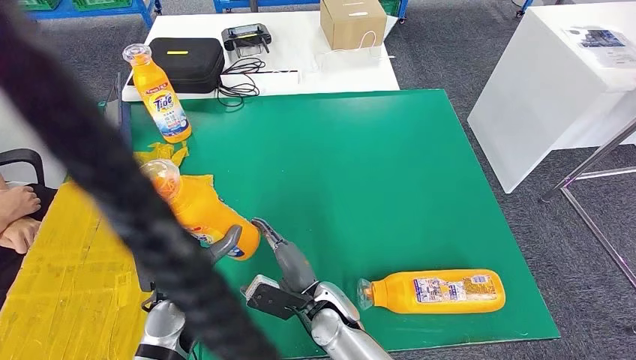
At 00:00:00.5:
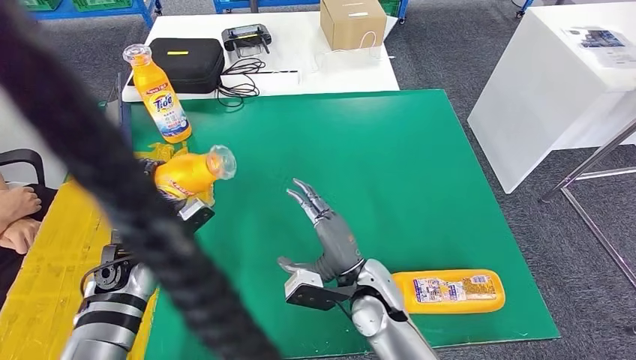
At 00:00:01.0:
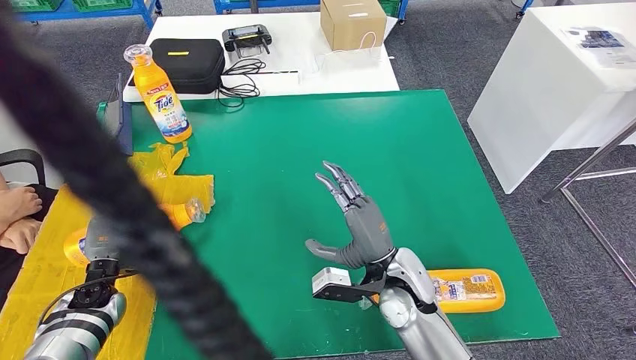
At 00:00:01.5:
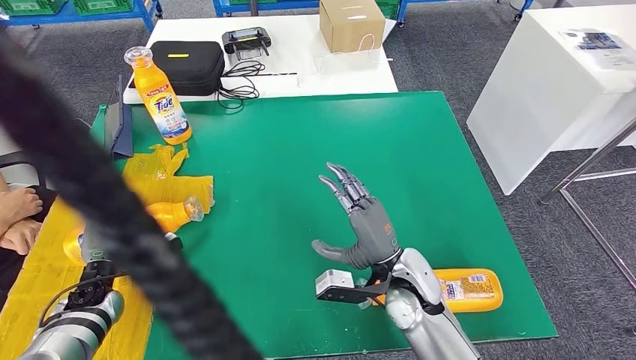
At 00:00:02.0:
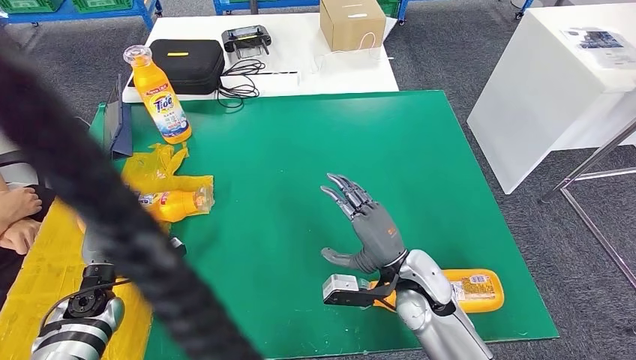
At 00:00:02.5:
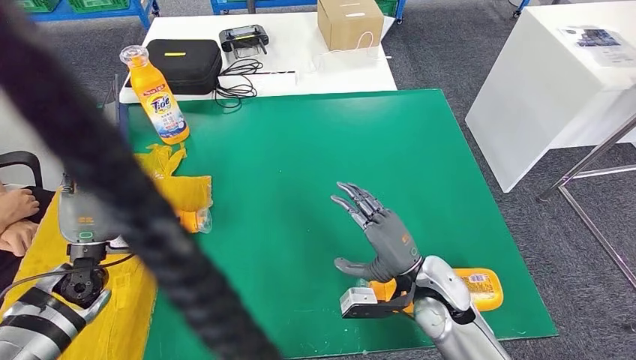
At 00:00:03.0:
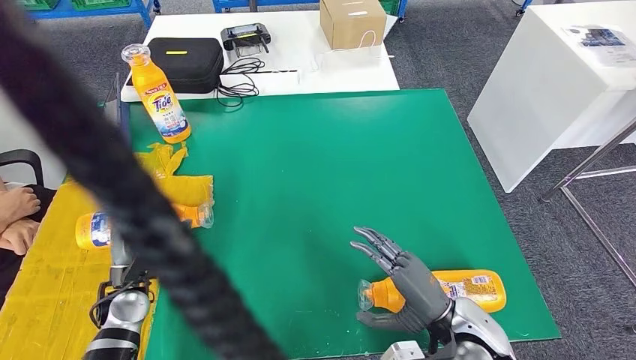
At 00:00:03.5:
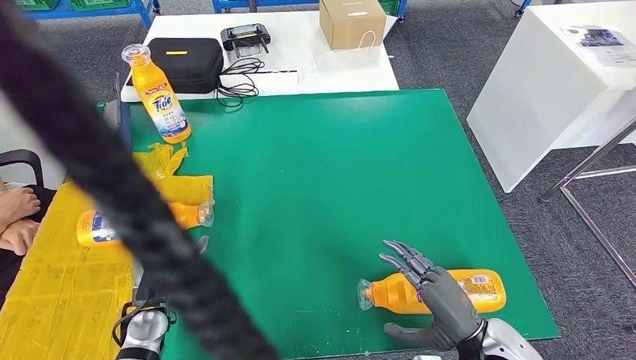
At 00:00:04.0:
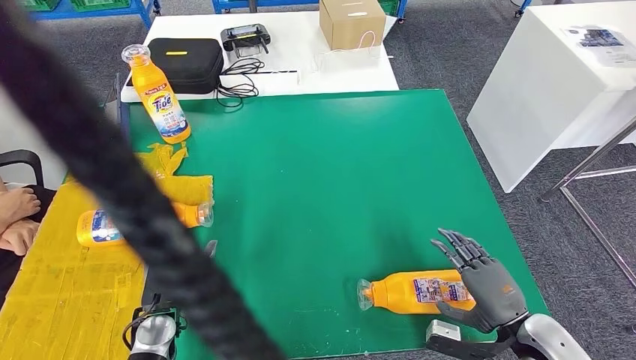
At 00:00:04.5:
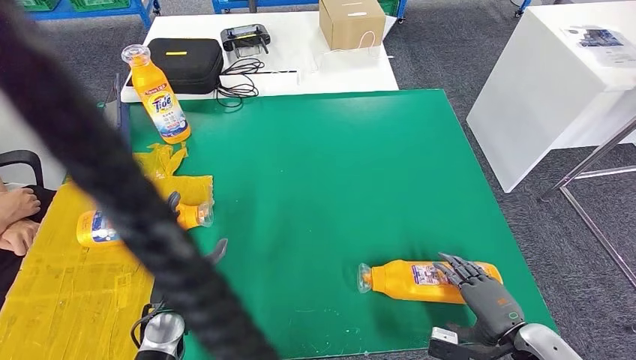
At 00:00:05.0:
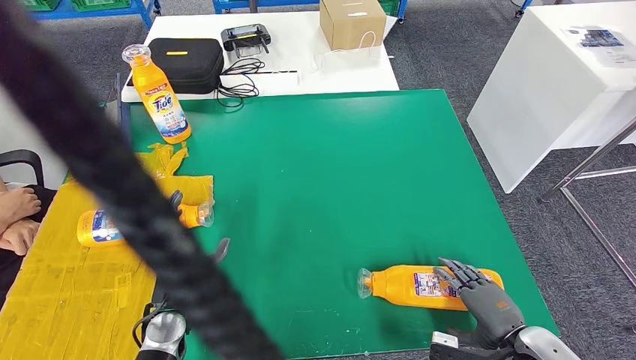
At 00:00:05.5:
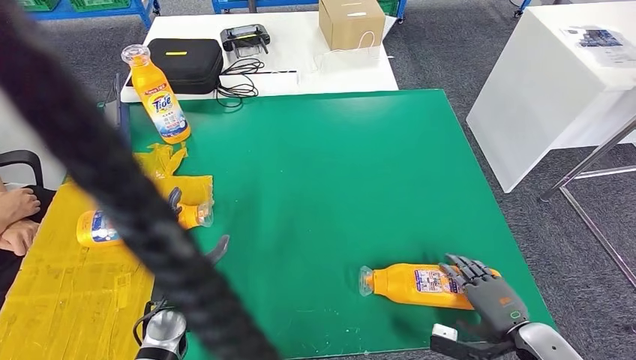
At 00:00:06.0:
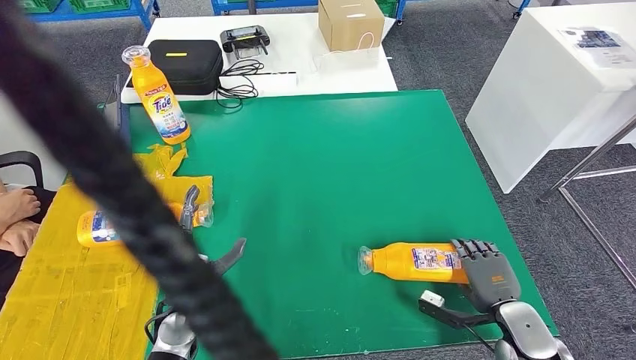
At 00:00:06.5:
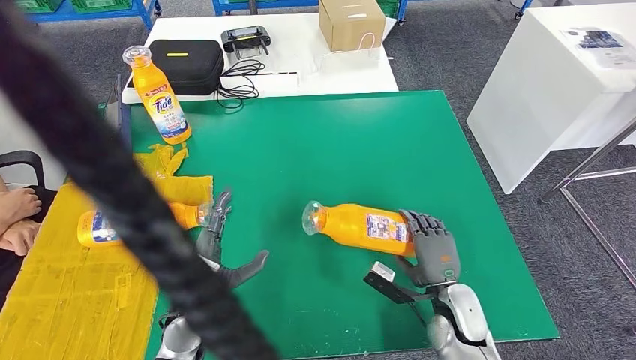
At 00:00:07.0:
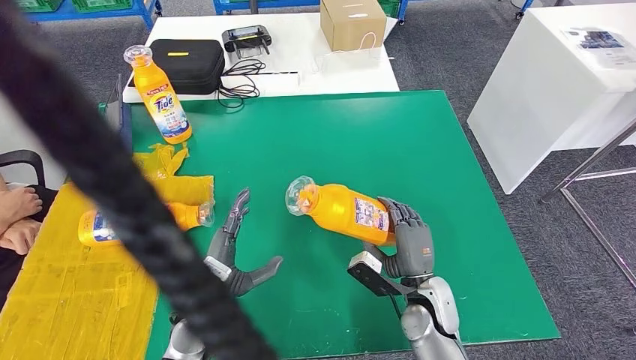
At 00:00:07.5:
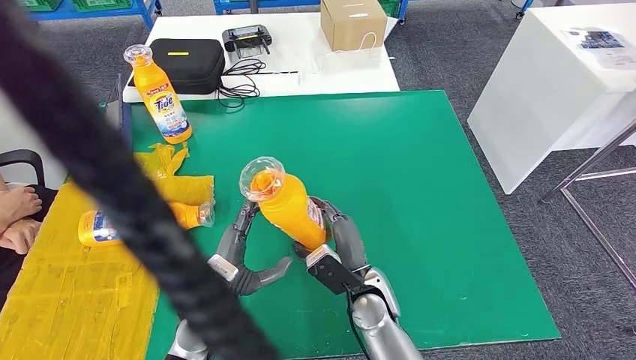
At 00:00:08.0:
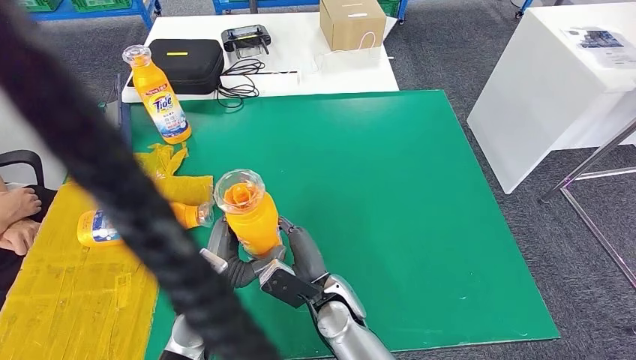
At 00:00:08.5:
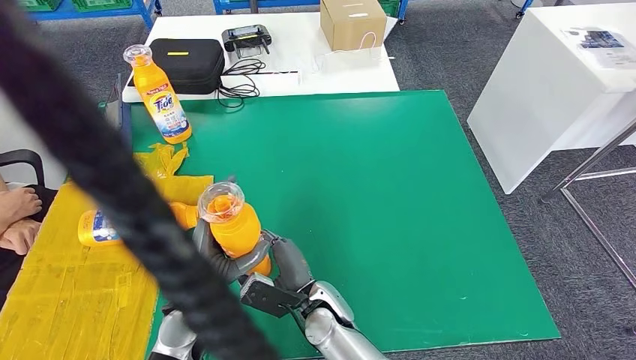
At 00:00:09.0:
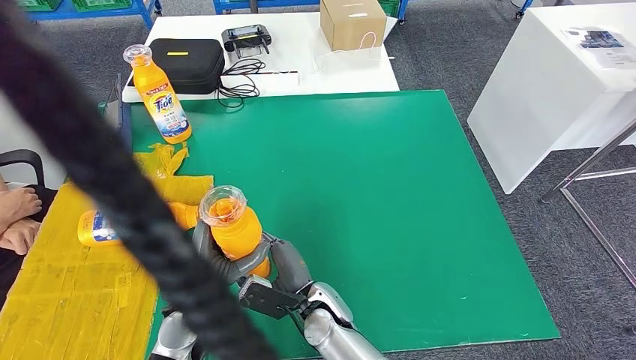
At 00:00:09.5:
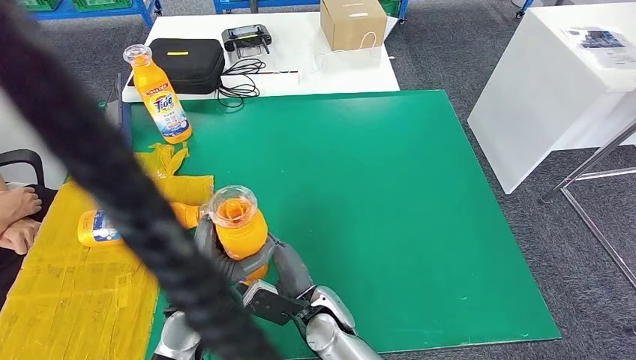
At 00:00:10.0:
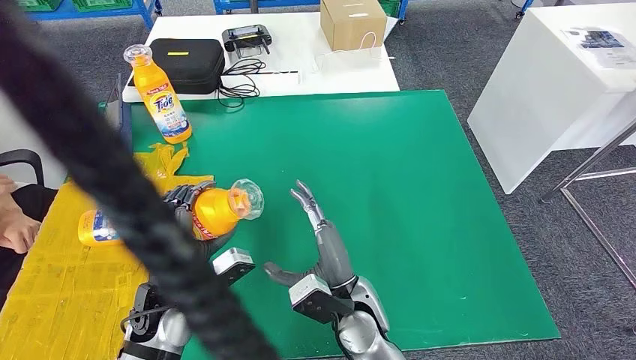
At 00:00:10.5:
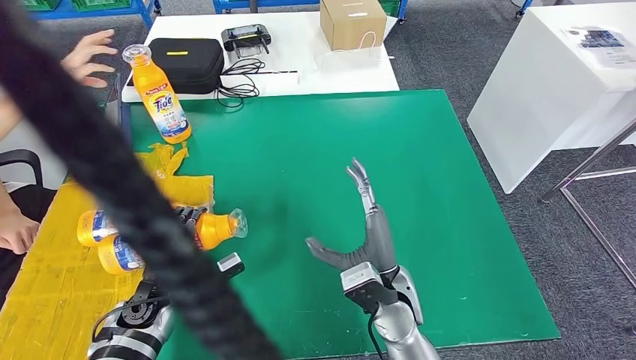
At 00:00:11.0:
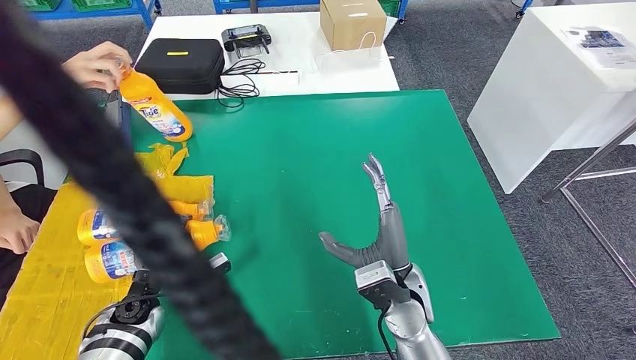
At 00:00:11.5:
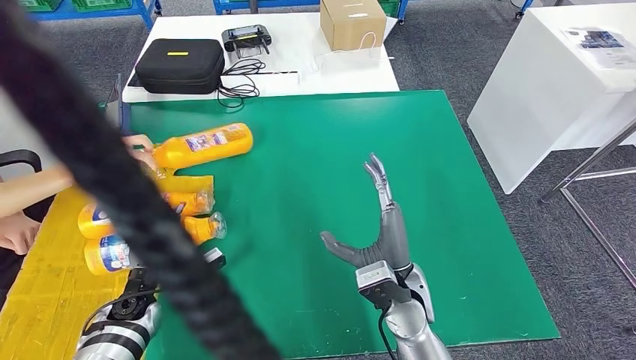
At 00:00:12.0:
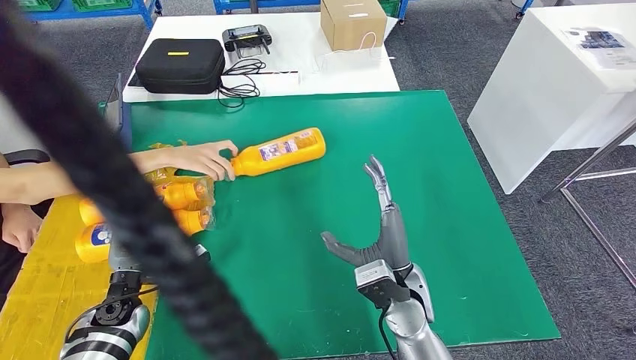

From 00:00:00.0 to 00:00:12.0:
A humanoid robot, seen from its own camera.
Step, from 00:00:00.0 to 00:00:02.0: Flip the bottle to face forward.
Step, from 00:00:02.5 to 00:00:06.5: Pick up the bottle from the table.
Step, from 00:00:07.5 to 00:00:10.0: Flip the bottle to face forward.
From 00:00:04.0 to 00:00:06.0: The right hand is displaced downward by approximately 5 cm; the left hand ends up approximately 5 cm from where it was.
From 00:00:06.0 to 00:00:08.0: The left hand moves to the right, some 5 cm. Meanwhile the right hand shifts some 30 cm to the left.
From 00:00:08.0 to 00:00:10.0: The left hand travels to the left by some 5 cm. The right hand moves some 5 cm.
From 00:00:10.0 to 00:00:12.0: The left hand heads to the left and downward, covering approximately 15 cm; the right hand shifts approximately 10 cm to the right.

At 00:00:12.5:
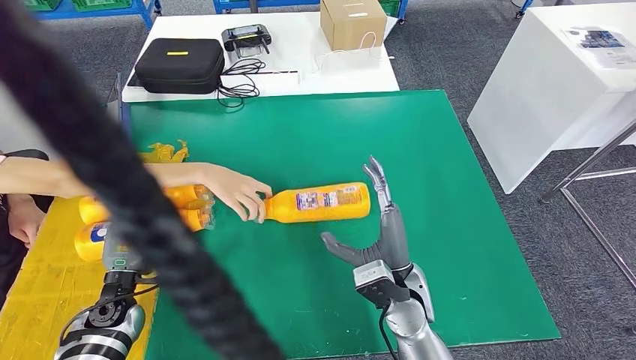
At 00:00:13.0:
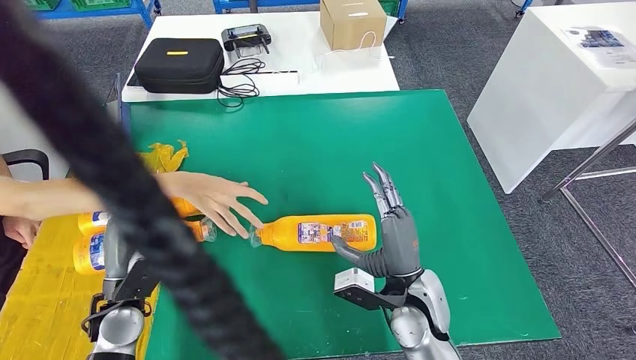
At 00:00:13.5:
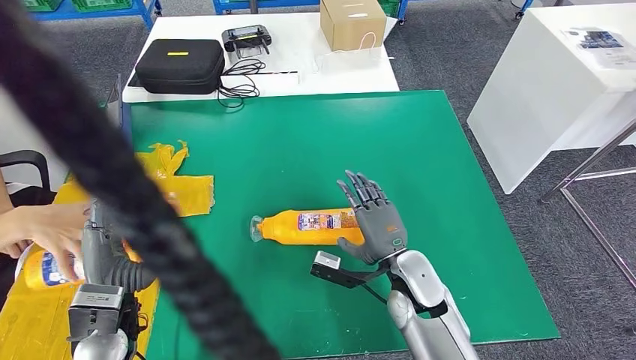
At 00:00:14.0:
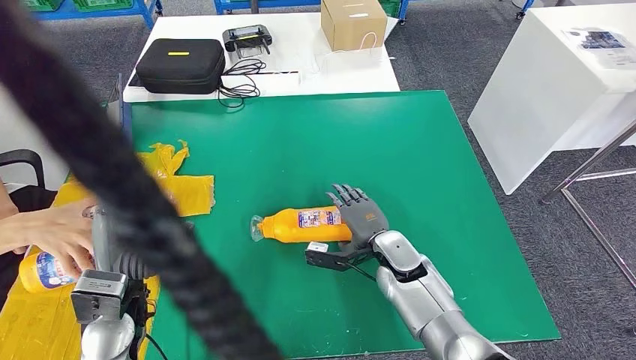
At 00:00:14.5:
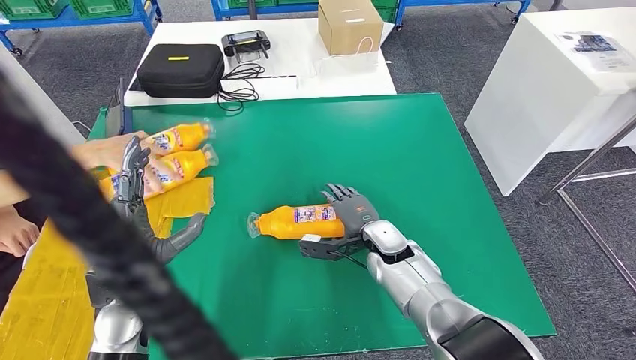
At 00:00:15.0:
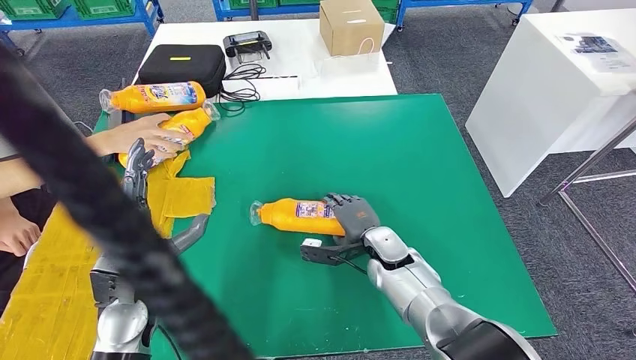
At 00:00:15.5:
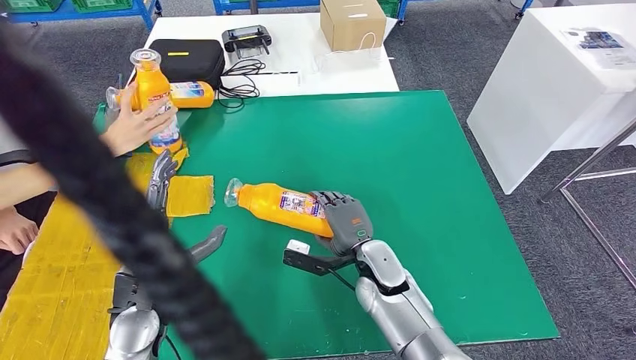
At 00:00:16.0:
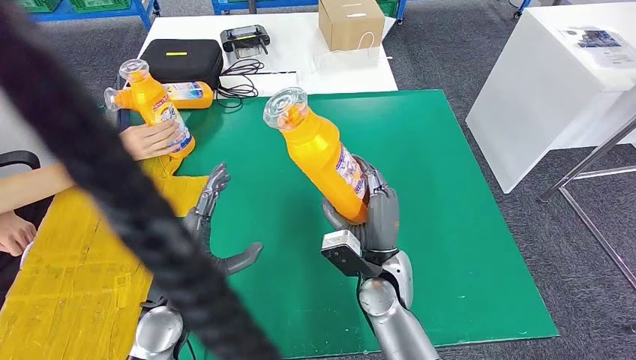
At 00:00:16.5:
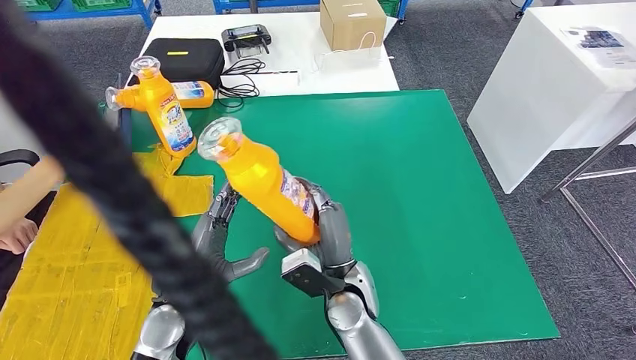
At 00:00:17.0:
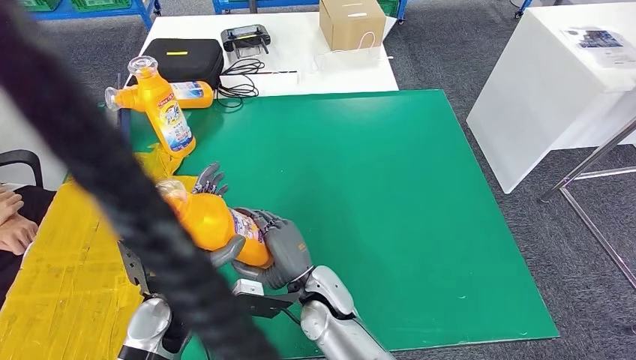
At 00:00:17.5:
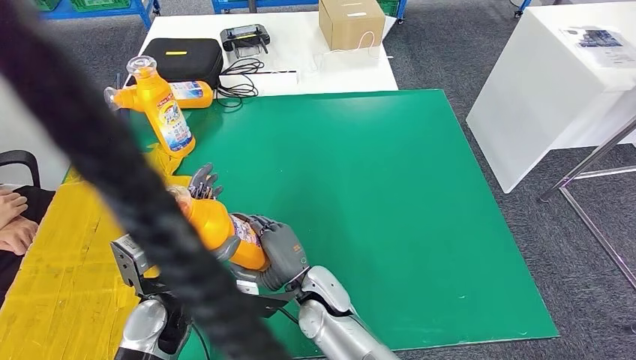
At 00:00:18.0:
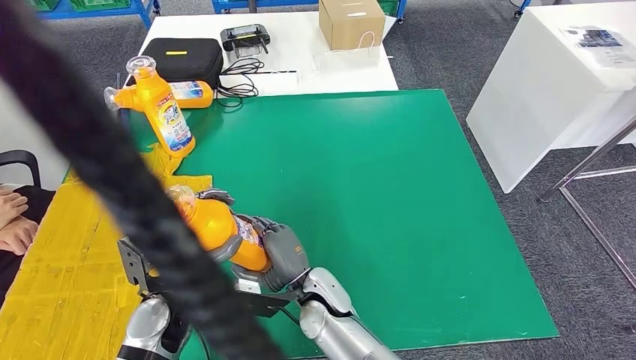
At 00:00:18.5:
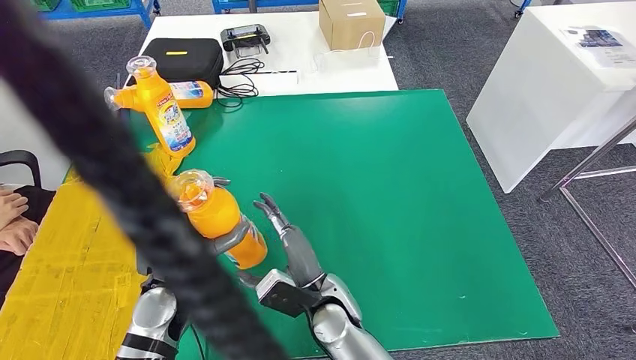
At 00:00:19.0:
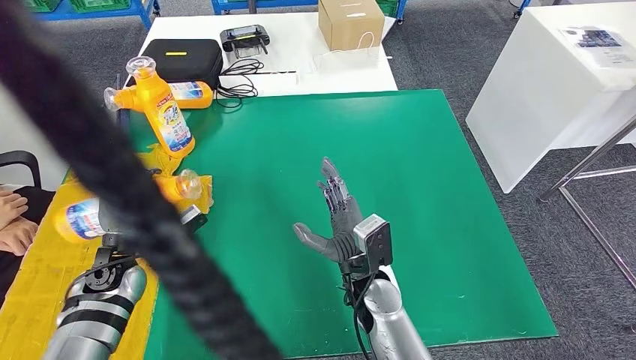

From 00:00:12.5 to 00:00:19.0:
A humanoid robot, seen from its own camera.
Step, from 00:00:12.5 to 00:00:16.0: Pick up the bottle from the table.
Step, from 00:00:16.5 to 00:00:19.0: Flip the bottle to face forward.
From 00:00:17.0 to 00:00:19.0: The left hand travels to the left and forward by some 15 cm. Meanwhile the right hand shifts some 10 cm to the right.
